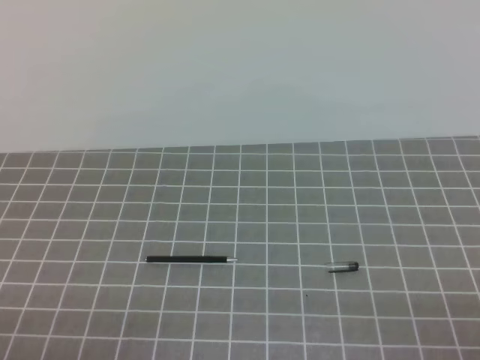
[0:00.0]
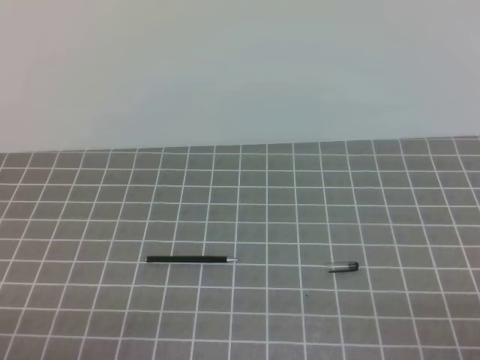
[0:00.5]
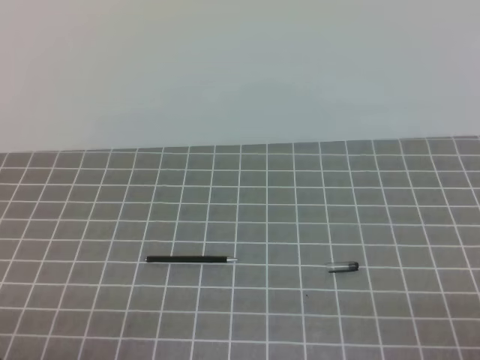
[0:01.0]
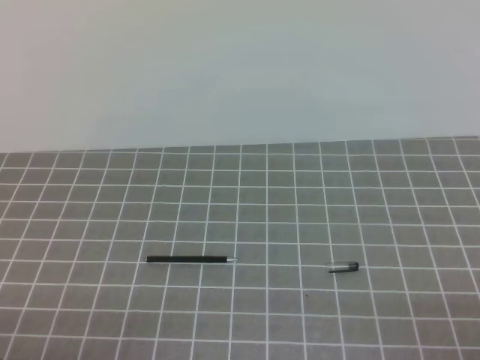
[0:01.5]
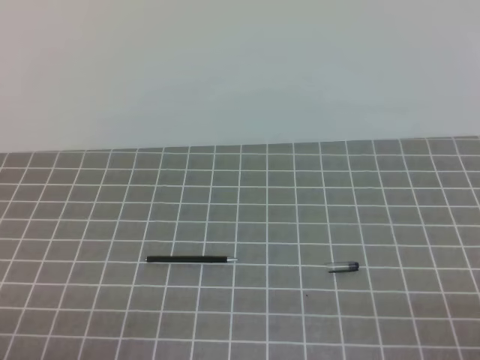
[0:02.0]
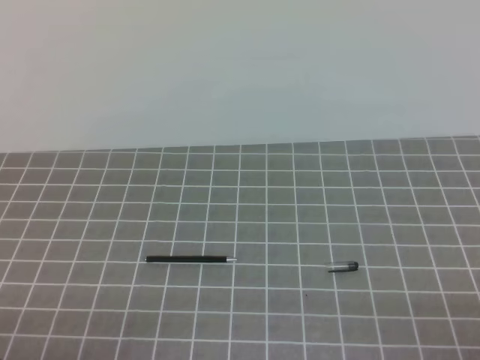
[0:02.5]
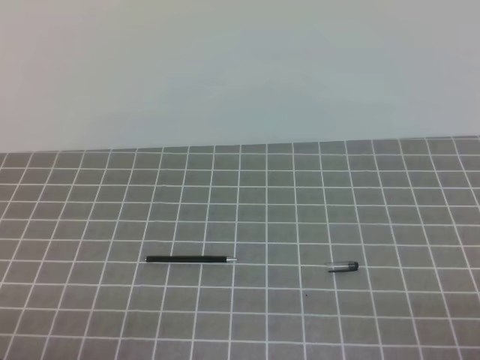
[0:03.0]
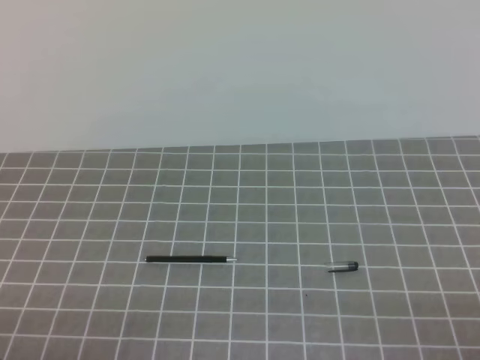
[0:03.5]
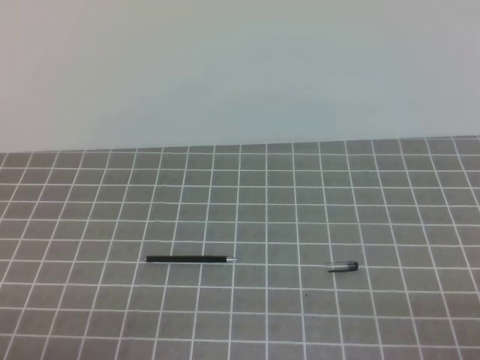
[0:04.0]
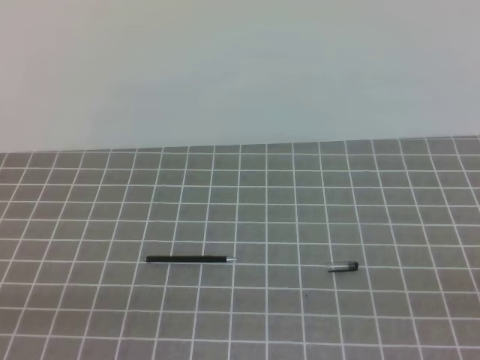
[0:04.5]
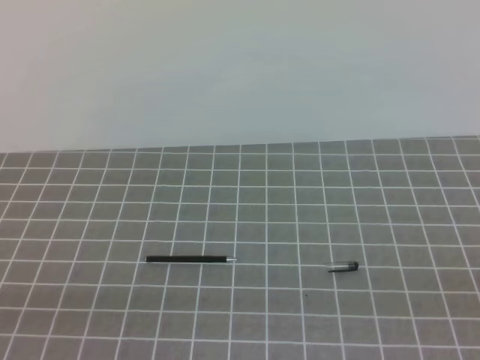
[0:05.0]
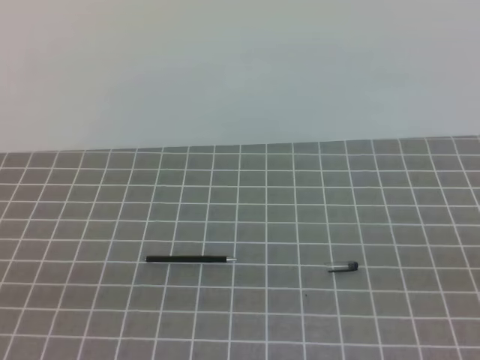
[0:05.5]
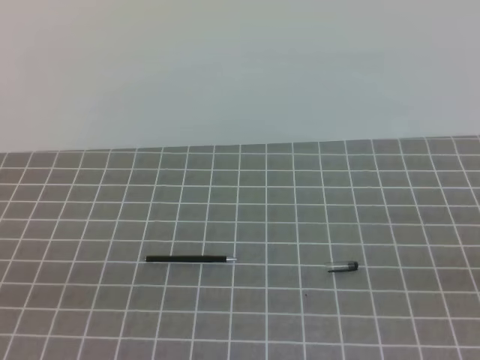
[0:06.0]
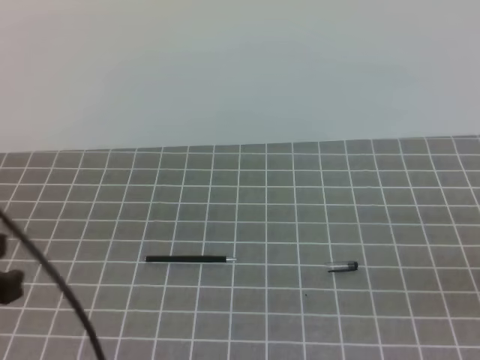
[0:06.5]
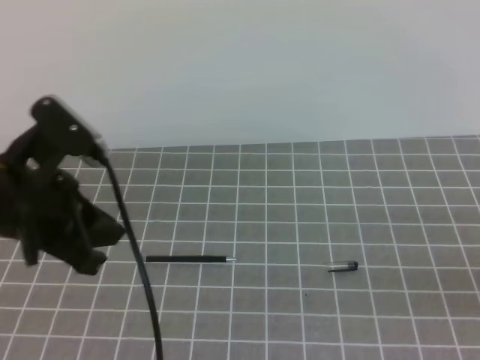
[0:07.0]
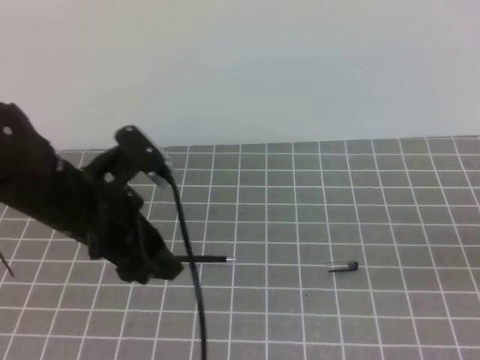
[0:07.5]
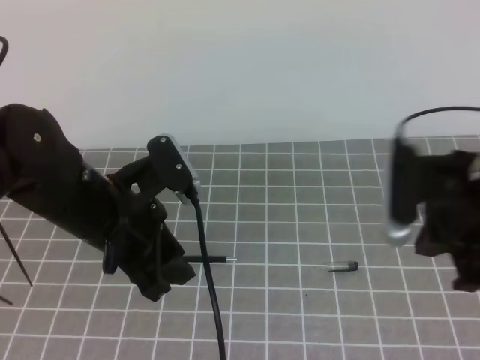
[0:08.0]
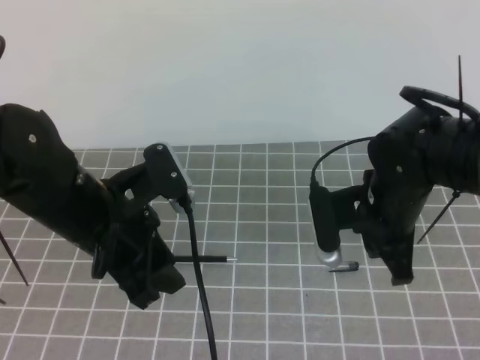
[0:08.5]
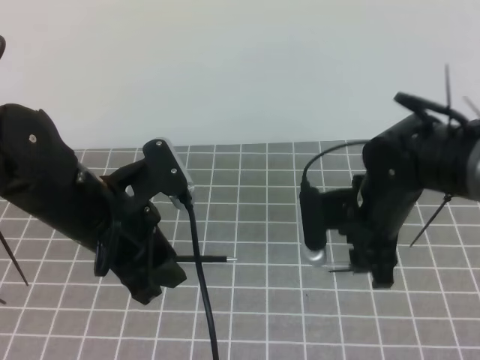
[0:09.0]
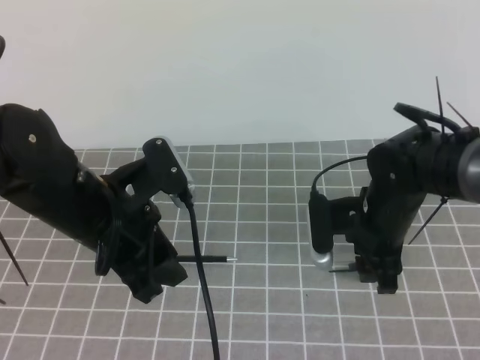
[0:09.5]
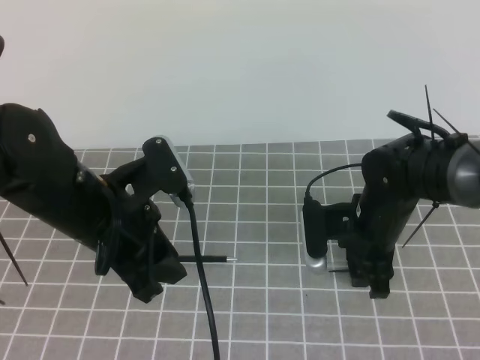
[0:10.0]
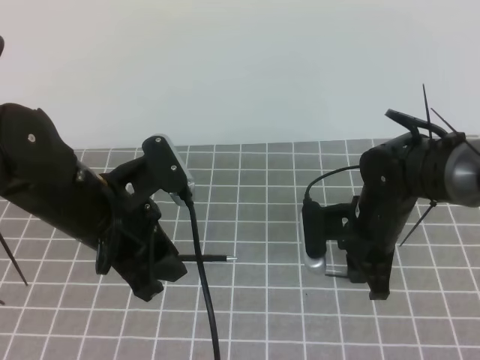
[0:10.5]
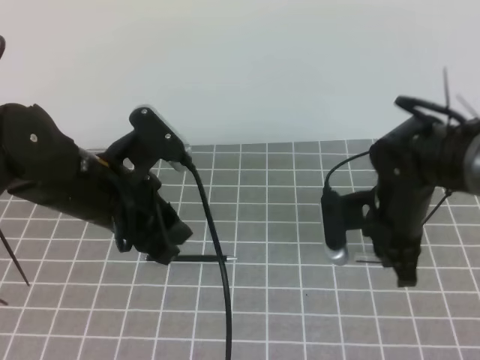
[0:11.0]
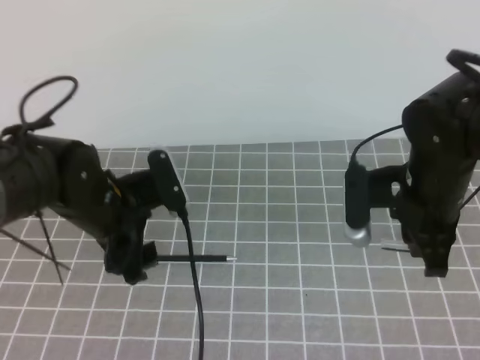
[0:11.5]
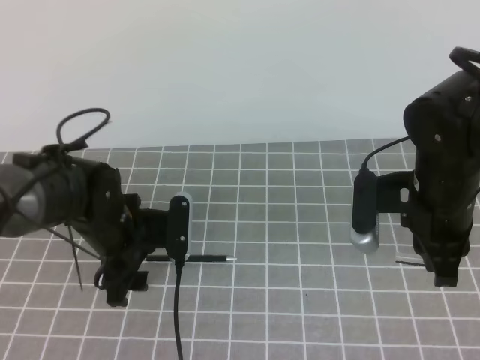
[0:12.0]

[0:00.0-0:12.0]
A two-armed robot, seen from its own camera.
Task of the whole recording: on the grey tablecloth, hold the pen cap in one hand and the pen in the other, then cover the pen cap.
2.0 to 4.0 s: The two grippers keep their place.
6.0 to 8.0 s: The left gripper shifts approximately 25 cm forward and to the right, and opens its fingers, while the right gripper goes roughly 20 cm forward and to the left.
8.0 to 10.0 s: The right gripper moves downward, forward and to the left, some 20 cm, and opens.
10.0 to 12.0 s: The right gripper moves upward, some 10 cm, and closes. Meanwhile the left gripper travels downward and forward by about 10 cm, and opens.

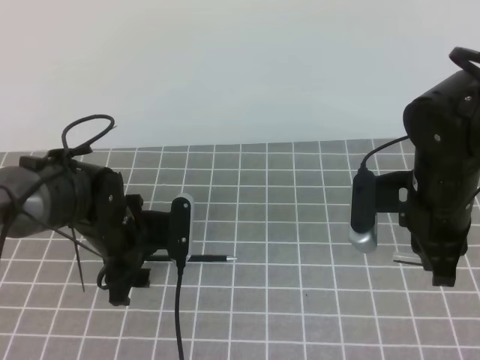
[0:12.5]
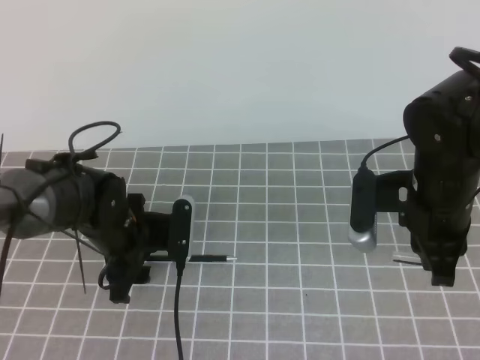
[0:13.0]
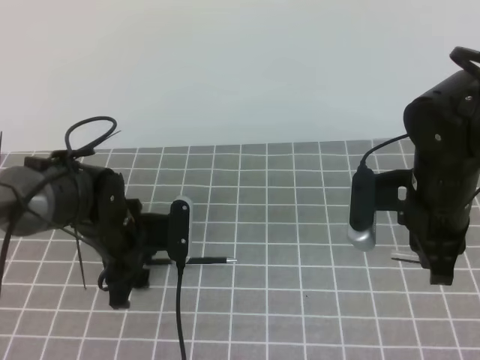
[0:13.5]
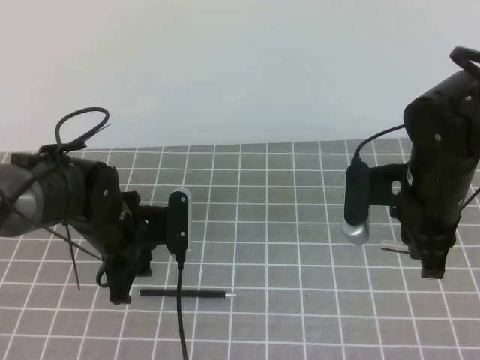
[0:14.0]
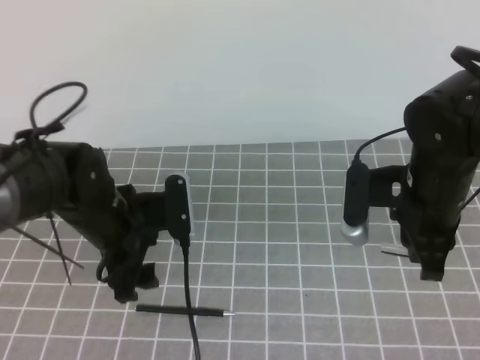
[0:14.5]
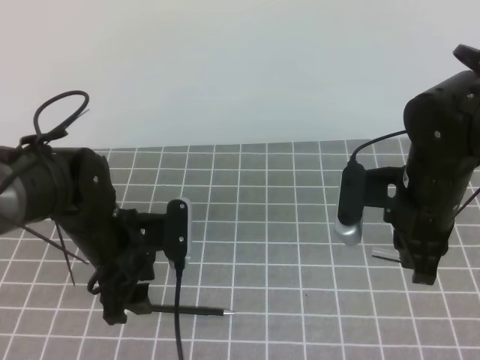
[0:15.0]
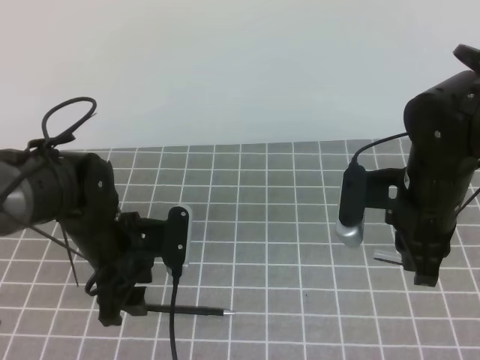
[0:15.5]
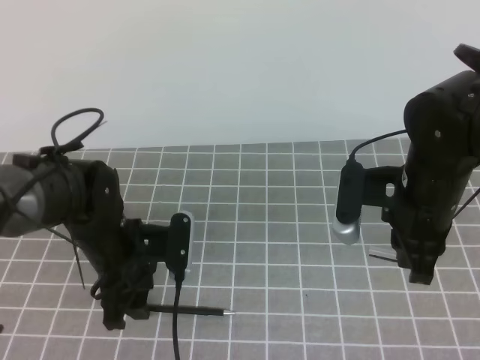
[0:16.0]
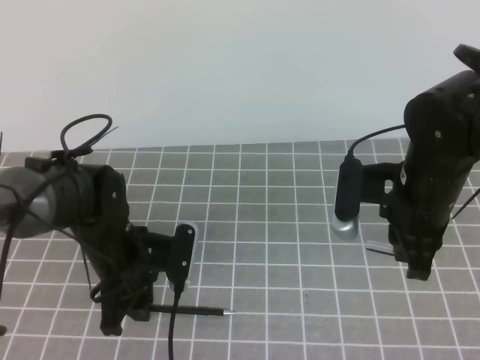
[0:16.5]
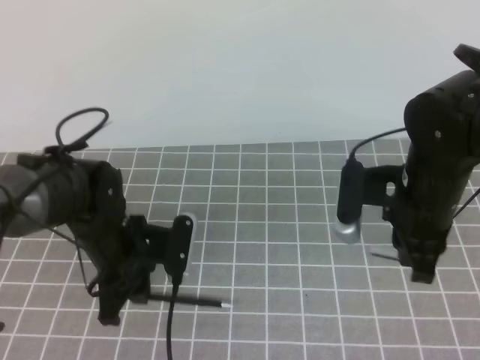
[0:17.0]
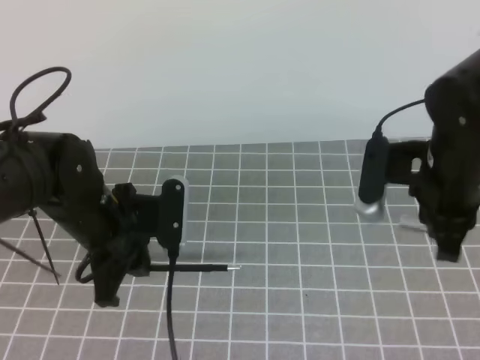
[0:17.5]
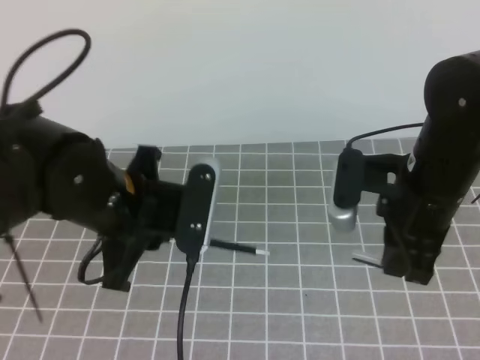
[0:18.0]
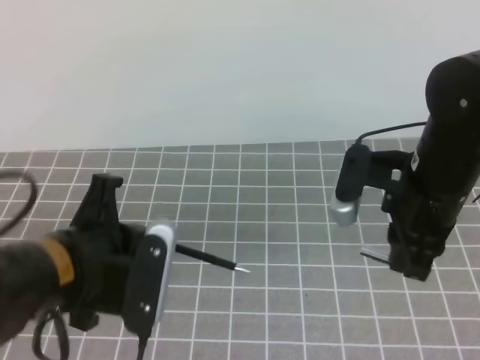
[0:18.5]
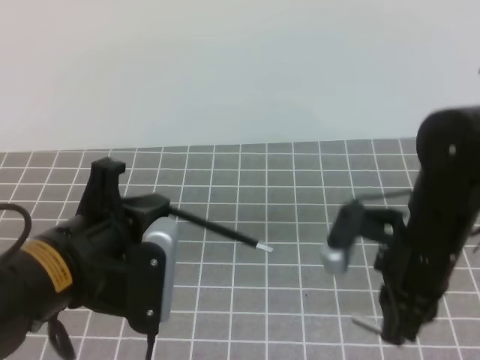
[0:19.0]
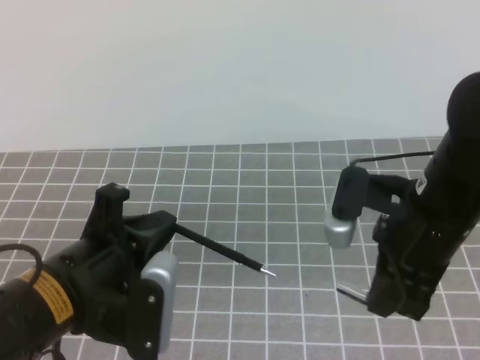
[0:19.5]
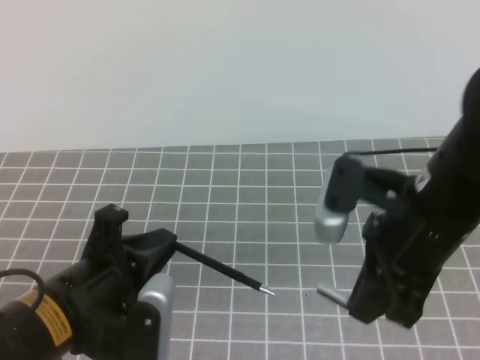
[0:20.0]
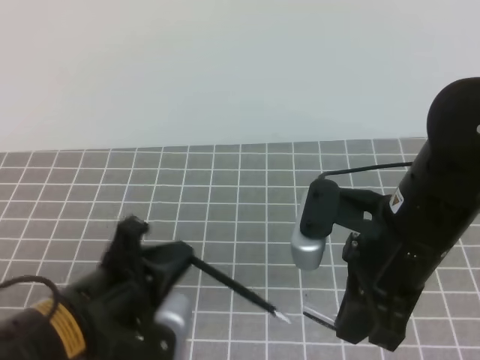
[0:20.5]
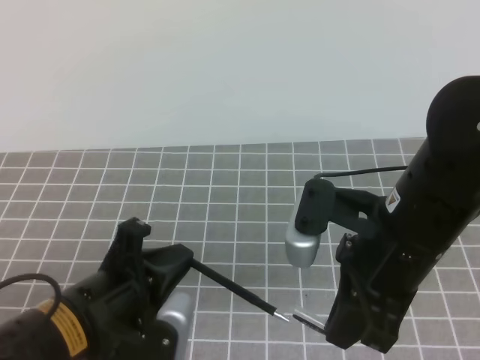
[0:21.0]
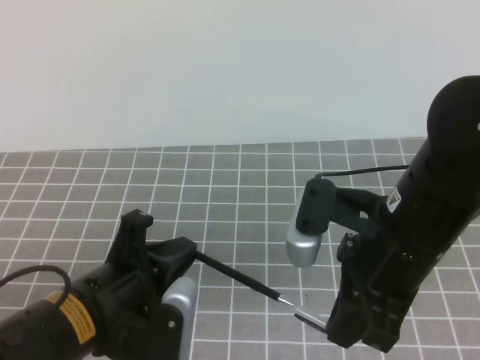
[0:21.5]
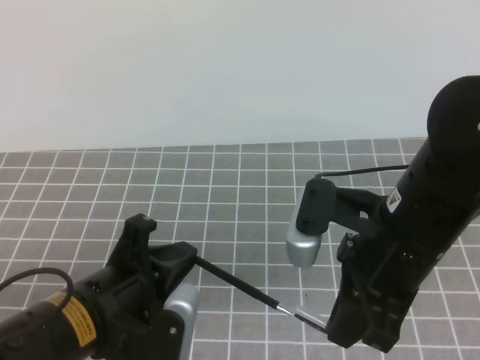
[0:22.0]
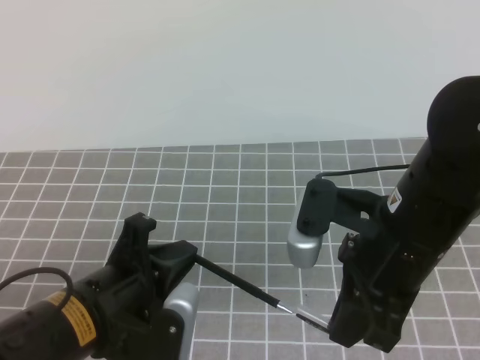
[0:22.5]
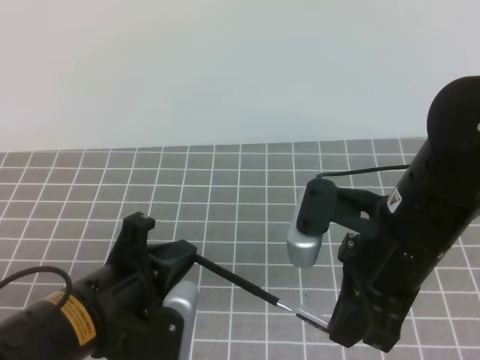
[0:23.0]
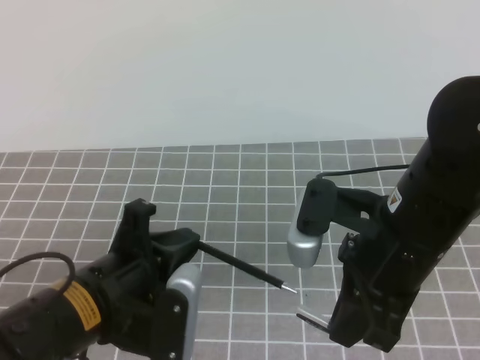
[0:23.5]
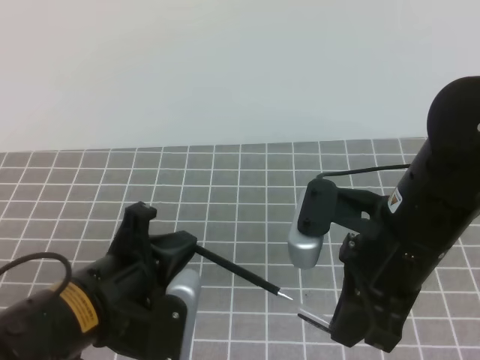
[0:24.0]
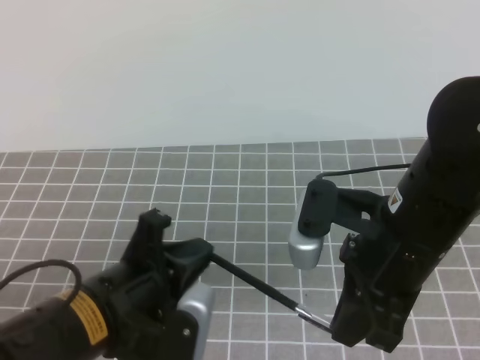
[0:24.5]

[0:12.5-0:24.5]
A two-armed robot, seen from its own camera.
Task of the whole recording: on the grey tablecloth, hold the pen cap in one hand and the pen in the other, then cover the pen cap.
12.5 to 14.5 s: The left gripper closes, then opens again.
14.5 to 16.5 s: The left gripper closes.
16.5 to 18.5 s: The left gripper moves upward and backward, some 15 cm, and closes.
18.5 to 20.5 s: The left gripper shifts by some 5 cm, while the right gripper goes some 5 cm backward.
20.5 to 22.5 s: The grippers stay close to where they were, moving slightly.
22.5 to 24.5 s: Neither gripper changes place.

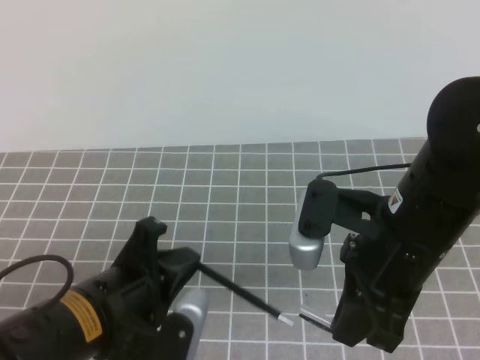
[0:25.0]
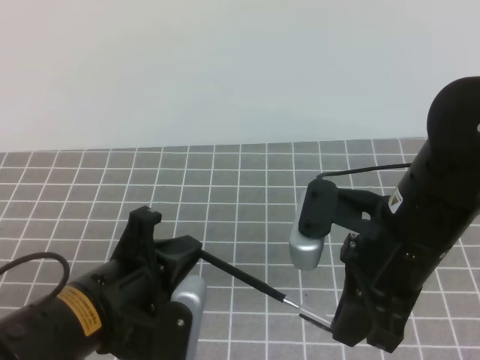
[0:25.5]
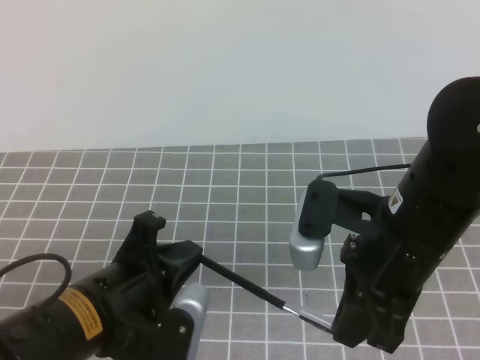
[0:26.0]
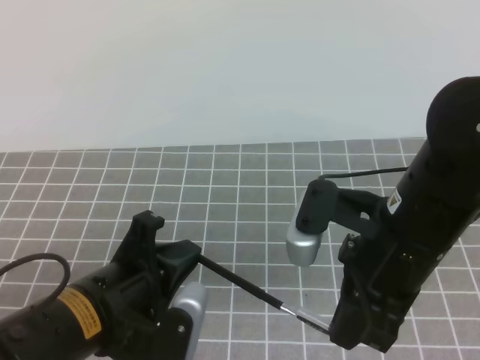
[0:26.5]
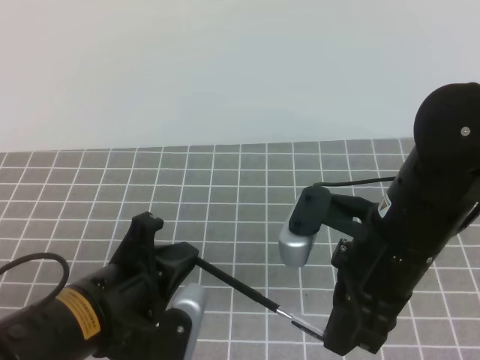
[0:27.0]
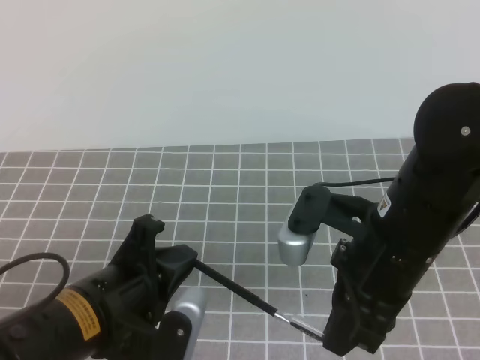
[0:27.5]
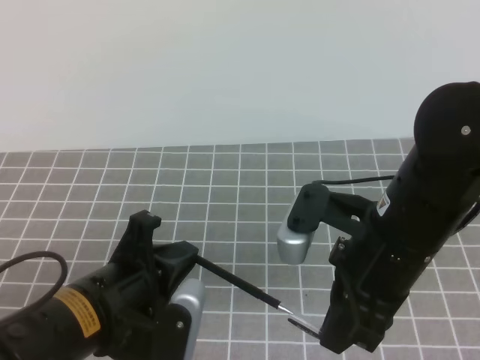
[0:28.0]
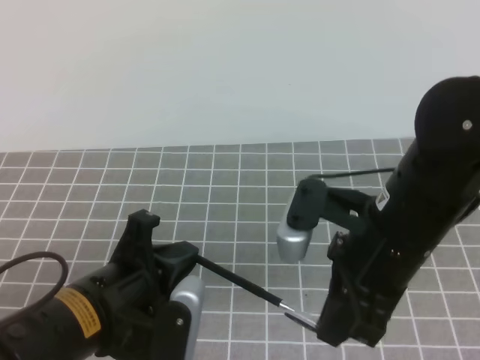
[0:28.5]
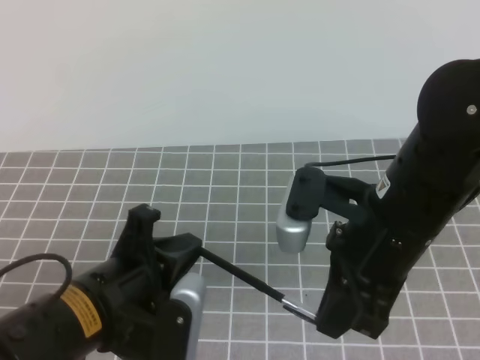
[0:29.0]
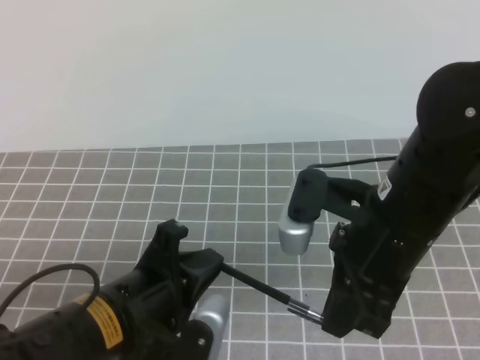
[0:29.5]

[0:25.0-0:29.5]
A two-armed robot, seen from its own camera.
Task of the whole recording: on the grey tablecloth, hold the pen cap in one hand and the pen in the other, then cover the pen cap.
25.0 to 29.5 s: The grippers move only a little.
